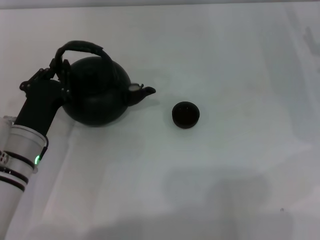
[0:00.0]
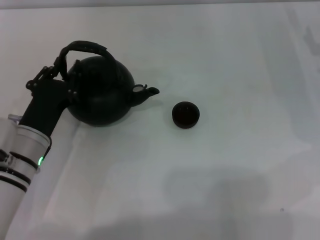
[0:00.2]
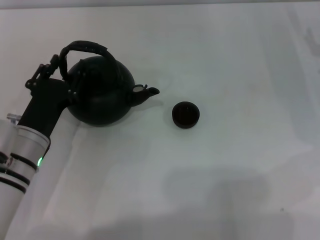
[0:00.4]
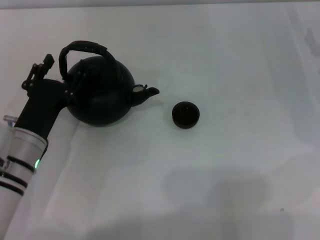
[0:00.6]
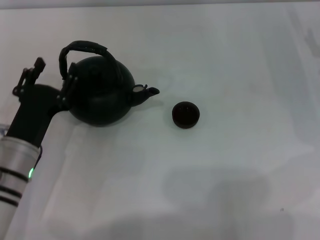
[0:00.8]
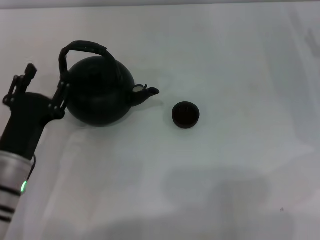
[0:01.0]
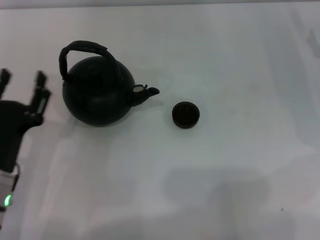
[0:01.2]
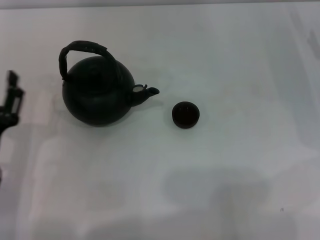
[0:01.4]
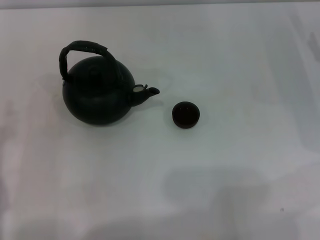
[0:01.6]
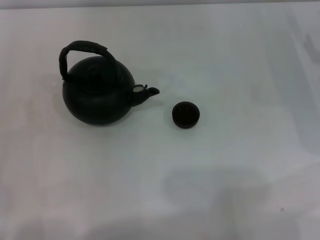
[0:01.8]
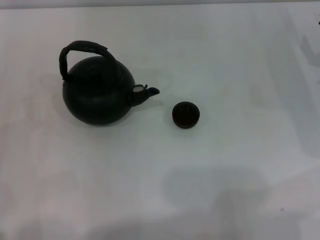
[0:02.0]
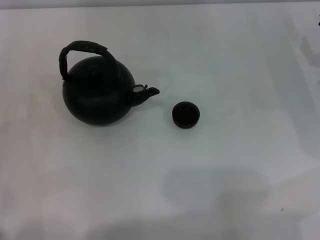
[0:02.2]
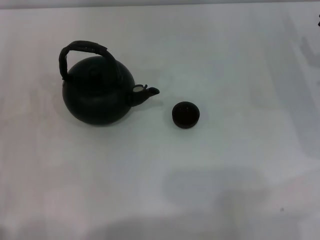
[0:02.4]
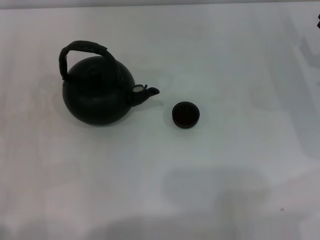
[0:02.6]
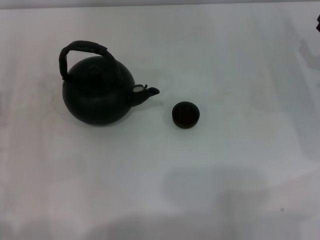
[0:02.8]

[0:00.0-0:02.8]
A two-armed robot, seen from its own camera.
Task of the whole recording: Grasp the handle of the teapot with one hand and pour tea into the teacup.
0:00.0 to 0:01.4: The left gripper shifts some 5 cm backward, and opens its fingers.
0:01.4 to 0:02.8: The left gripper is displaced to the left by about 5 cm.
